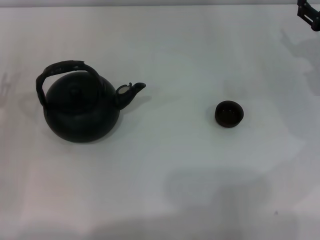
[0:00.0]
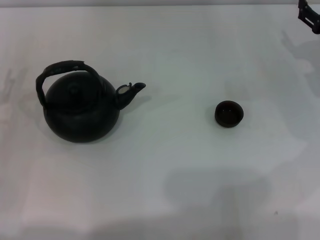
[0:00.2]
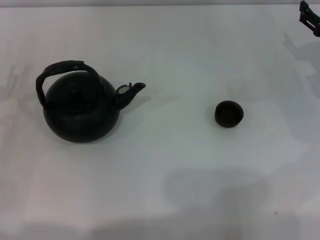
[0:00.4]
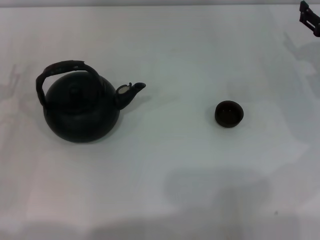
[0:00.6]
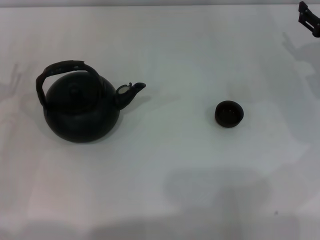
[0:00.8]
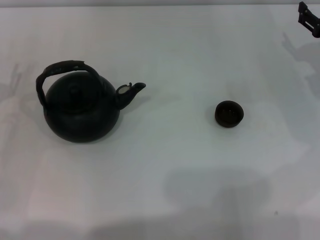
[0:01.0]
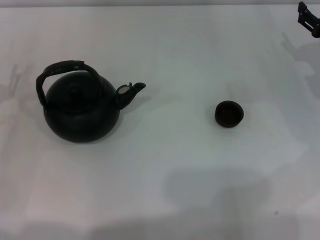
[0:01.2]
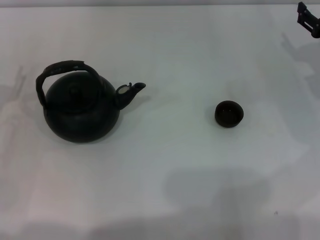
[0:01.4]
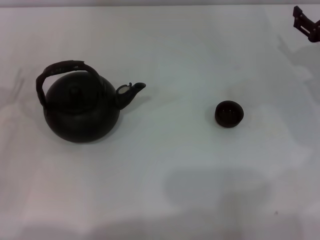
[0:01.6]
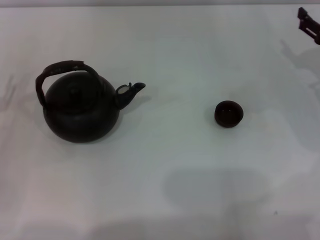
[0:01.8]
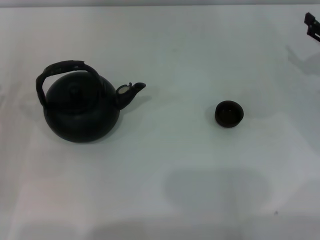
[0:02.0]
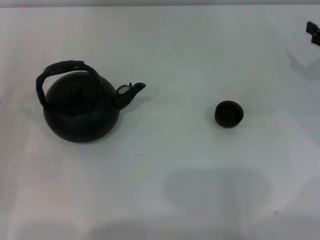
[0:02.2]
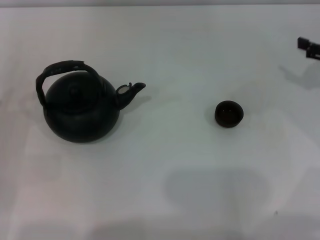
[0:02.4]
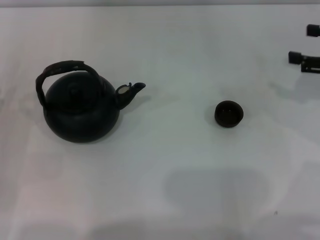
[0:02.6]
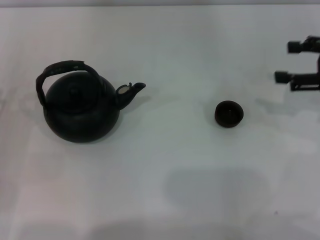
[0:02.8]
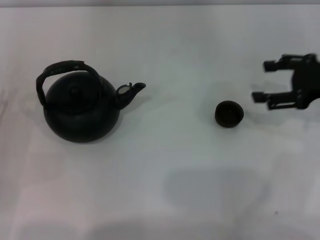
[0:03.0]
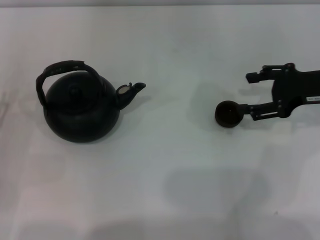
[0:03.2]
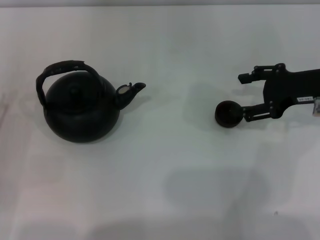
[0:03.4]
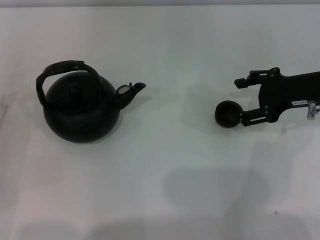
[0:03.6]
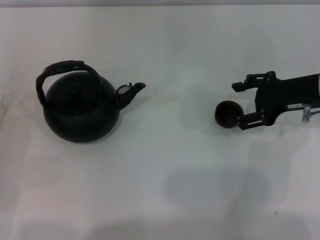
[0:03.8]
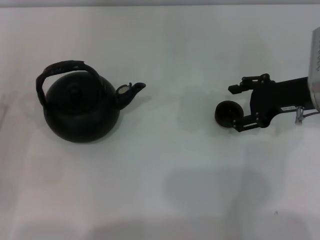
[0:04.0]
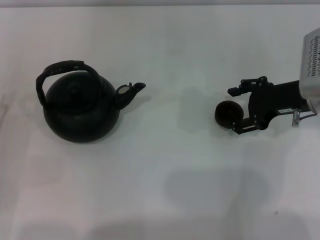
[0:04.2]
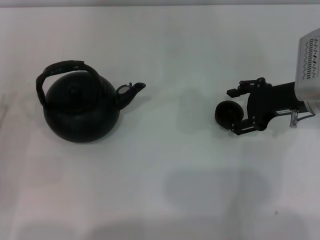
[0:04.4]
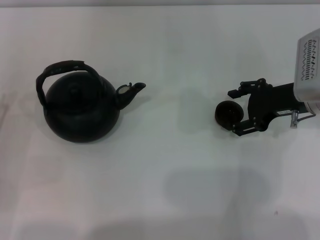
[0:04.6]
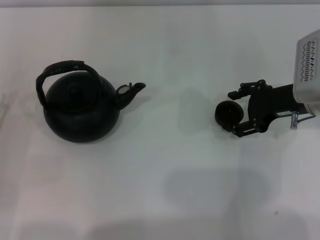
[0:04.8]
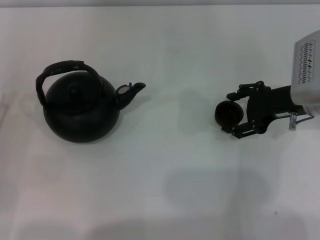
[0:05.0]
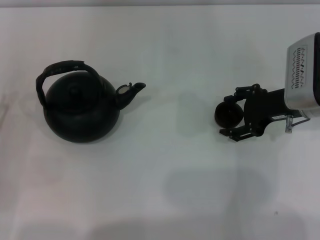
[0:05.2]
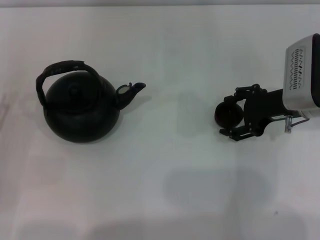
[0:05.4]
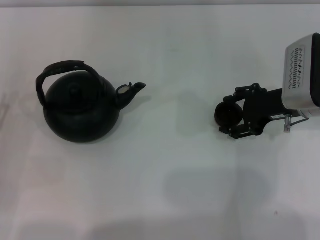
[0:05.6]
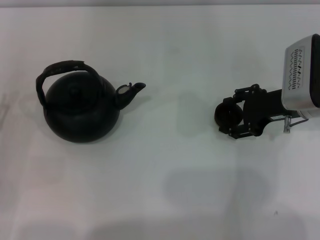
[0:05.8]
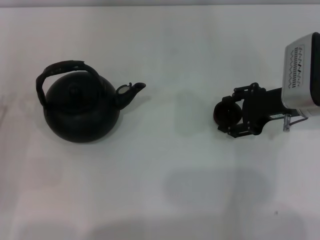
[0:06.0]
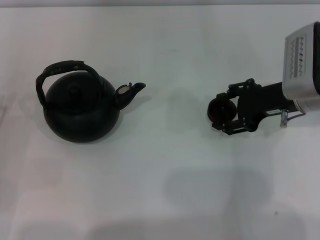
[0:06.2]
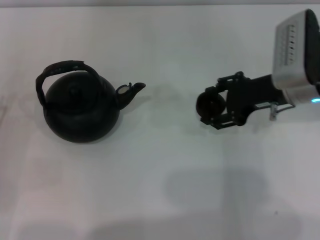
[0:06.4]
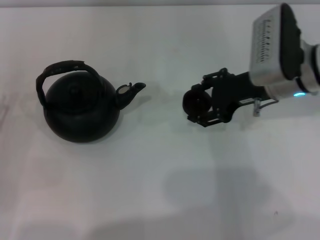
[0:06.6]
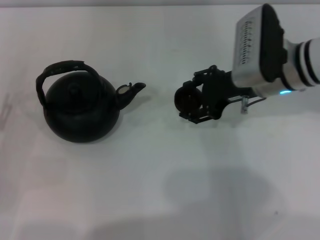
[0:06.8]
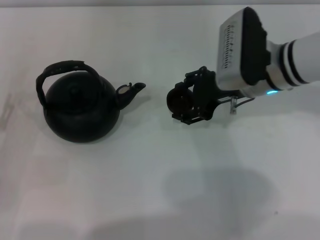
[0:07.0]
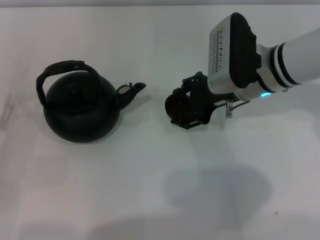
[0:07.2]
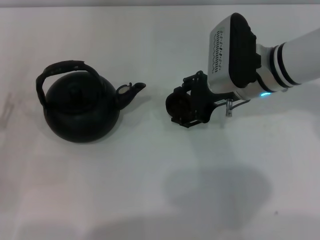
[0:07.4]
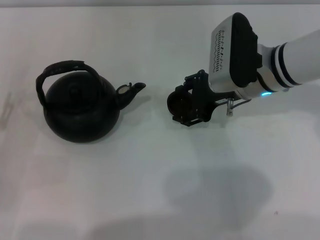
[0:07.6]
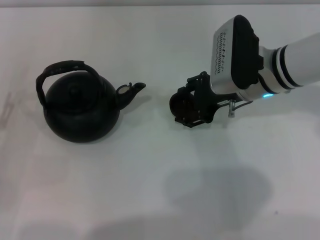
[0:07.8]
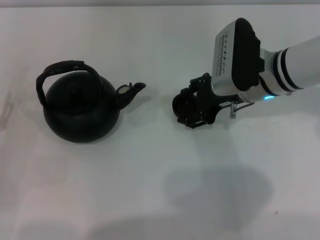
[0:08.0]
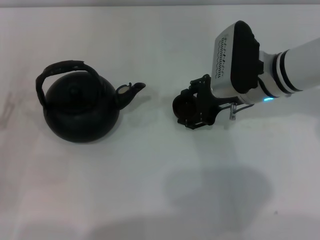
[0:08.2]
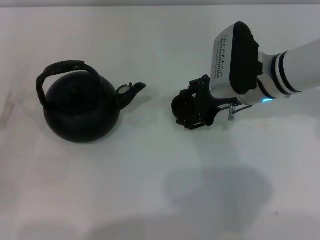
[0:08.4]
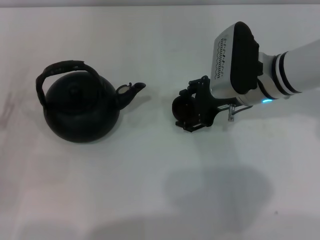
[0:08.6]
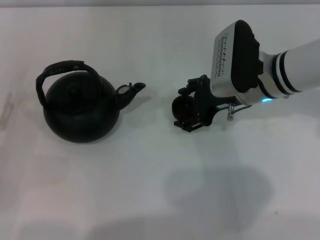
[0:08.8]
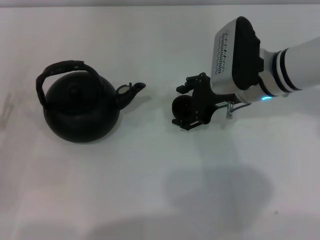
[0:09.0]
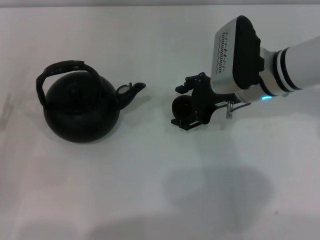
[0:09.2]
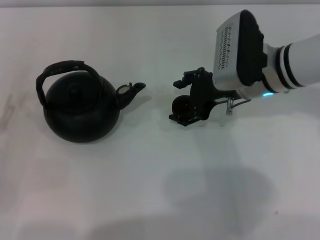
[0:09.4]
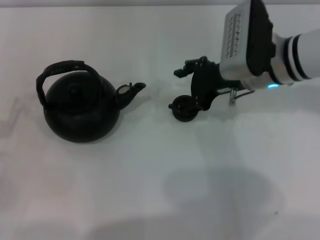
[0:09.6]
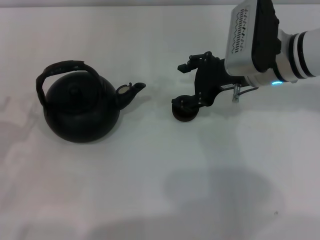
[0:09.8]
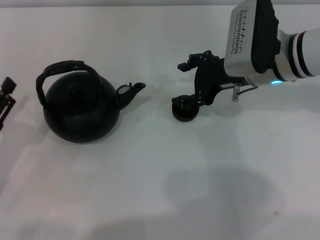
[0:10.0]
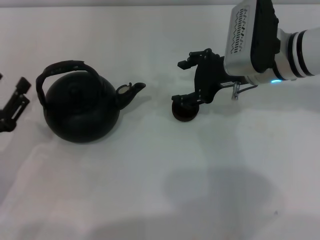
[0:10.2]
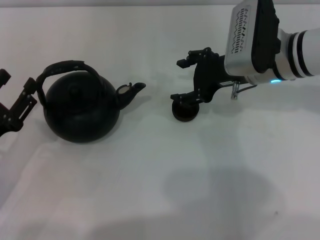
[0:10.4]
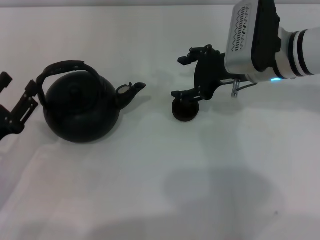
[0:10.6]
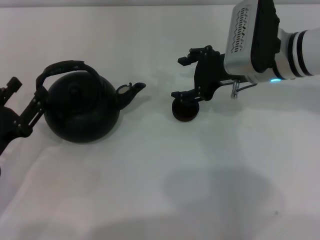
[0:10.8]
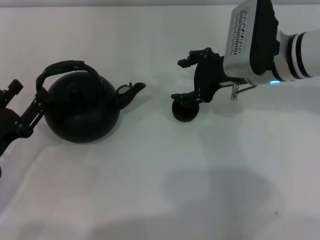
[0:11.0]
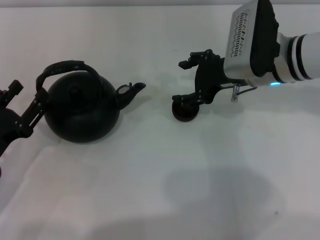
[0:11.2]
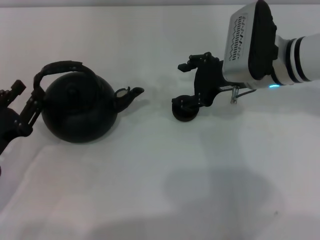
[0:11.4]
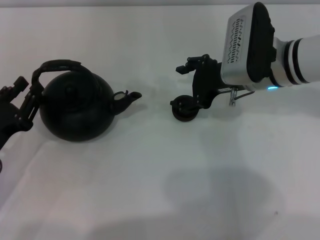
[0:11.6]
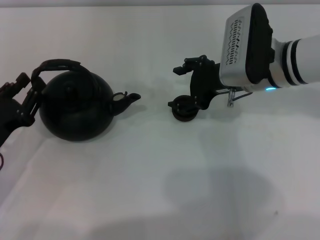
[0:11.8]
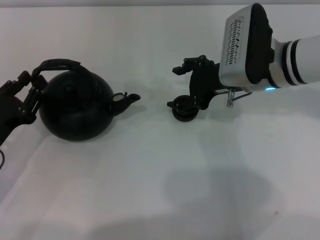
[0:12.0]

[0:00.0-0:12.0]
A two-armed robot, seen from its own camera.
Task of the whole recording: Grasp the handle of the teapot with one hand and pour tea into the teacup.
Step, 0:00.0 to 0:06.2: Pick up the teacup with the right gripper.
Step, 0:06.4 to 0:09.6: Place the teacup in the center of view with the right gripper.
0:00.0 to 0:01.6: There are only small adjustments of the grippers.
0:01.6 to 0:03.0: The right gripper travels upward by roughly 5 cm.
0:03.0 to 0:04.4: The right gripper travels to the left by roughly 5 cm.
0:04.4 to 0:06.0: The right gripper closes up.
0:06.0 to 0:07.6: The right gripper heads to the left, covering approximately 10 cm.
0:07.6 to 0:09.0: The right gripper opens up.
0:09.0 to 0:10.4: The left gripper shifts approximately 5 cm to the right.
0:10.4 to 0:12.0: The left gripper closes its fingers.

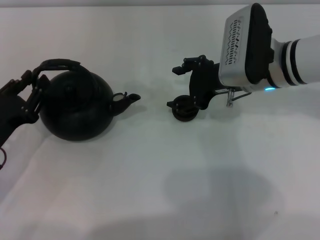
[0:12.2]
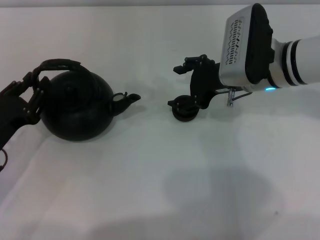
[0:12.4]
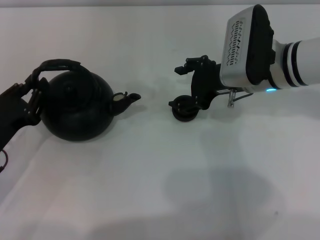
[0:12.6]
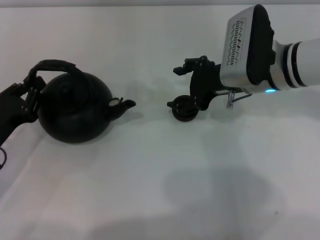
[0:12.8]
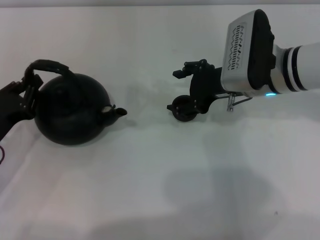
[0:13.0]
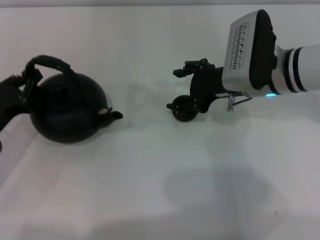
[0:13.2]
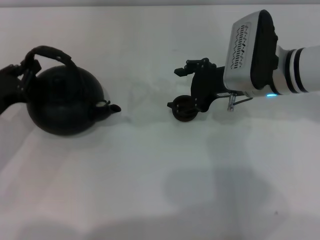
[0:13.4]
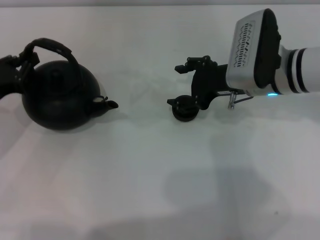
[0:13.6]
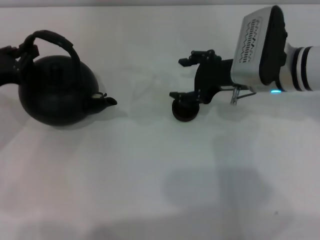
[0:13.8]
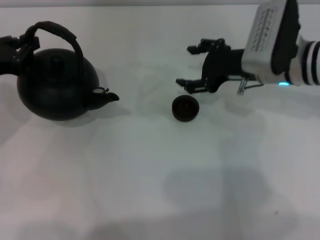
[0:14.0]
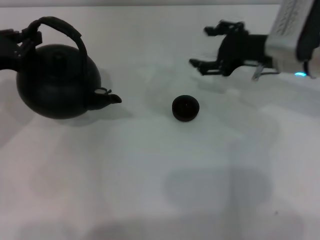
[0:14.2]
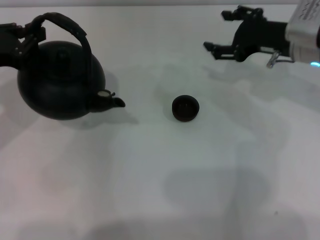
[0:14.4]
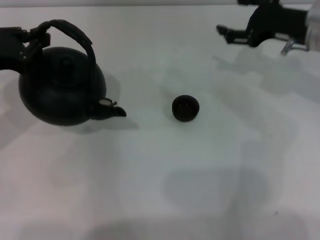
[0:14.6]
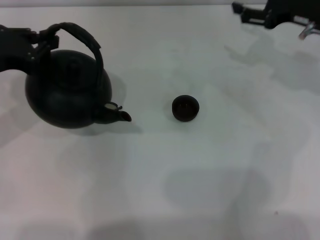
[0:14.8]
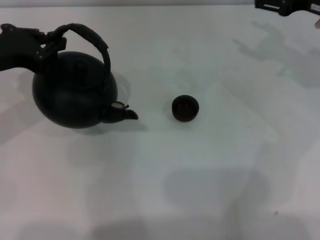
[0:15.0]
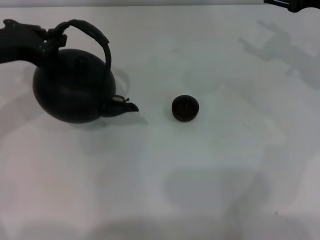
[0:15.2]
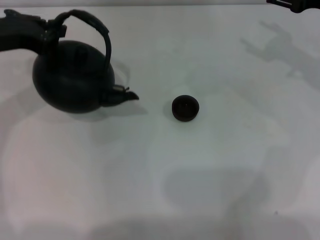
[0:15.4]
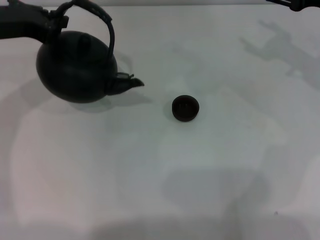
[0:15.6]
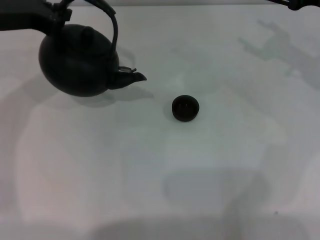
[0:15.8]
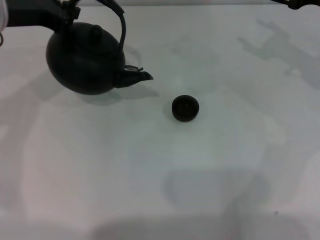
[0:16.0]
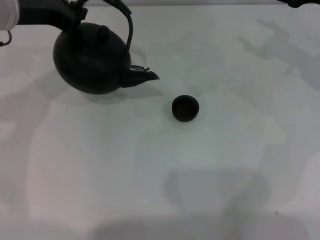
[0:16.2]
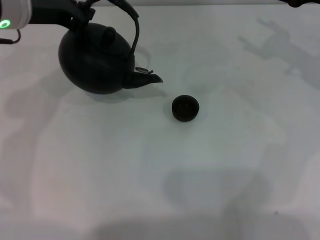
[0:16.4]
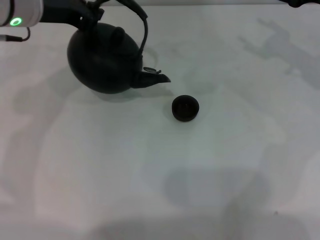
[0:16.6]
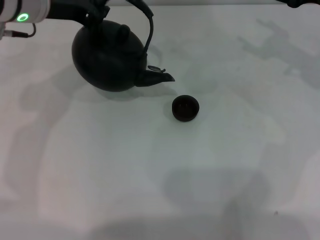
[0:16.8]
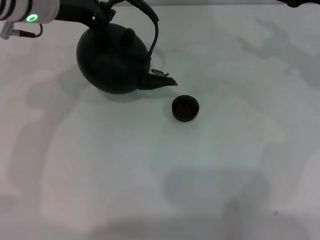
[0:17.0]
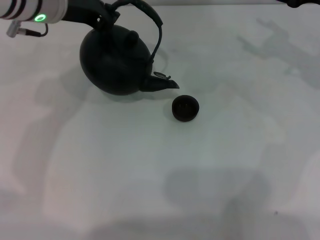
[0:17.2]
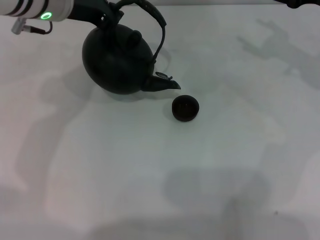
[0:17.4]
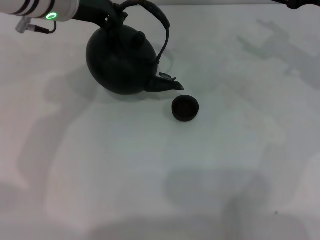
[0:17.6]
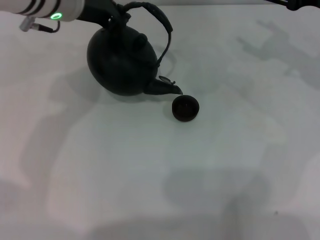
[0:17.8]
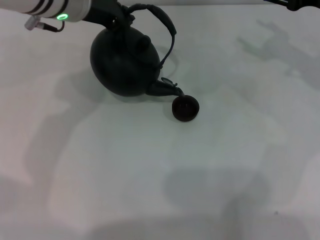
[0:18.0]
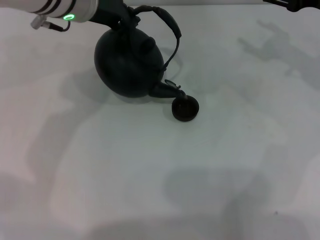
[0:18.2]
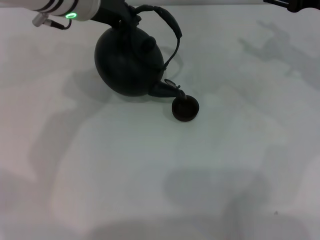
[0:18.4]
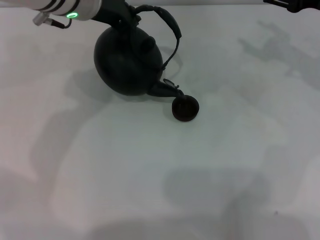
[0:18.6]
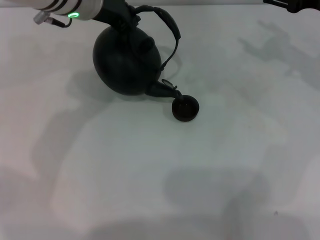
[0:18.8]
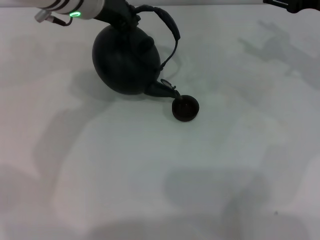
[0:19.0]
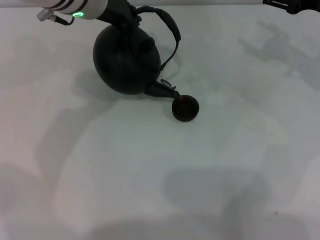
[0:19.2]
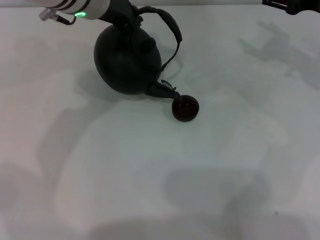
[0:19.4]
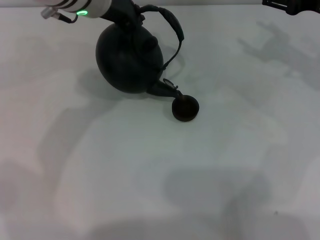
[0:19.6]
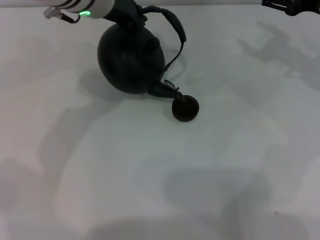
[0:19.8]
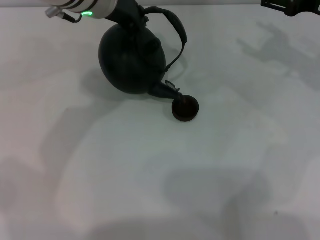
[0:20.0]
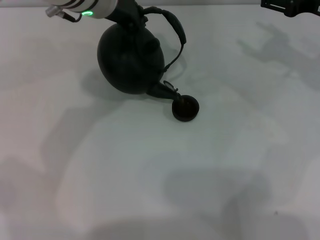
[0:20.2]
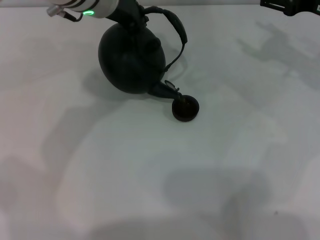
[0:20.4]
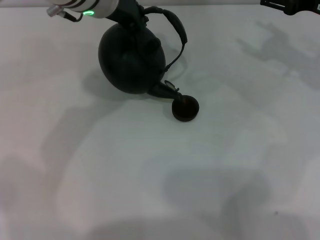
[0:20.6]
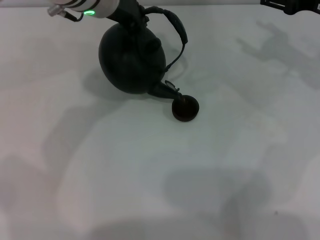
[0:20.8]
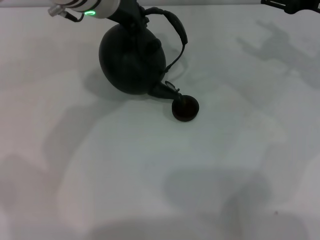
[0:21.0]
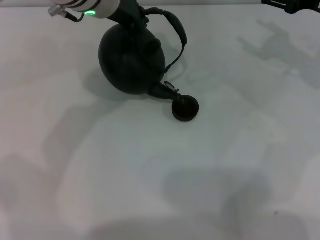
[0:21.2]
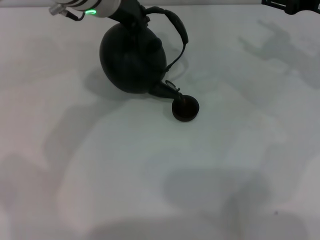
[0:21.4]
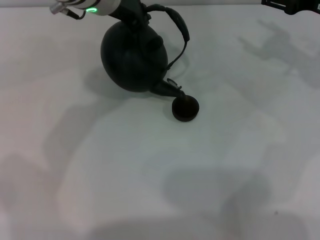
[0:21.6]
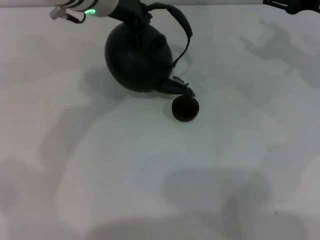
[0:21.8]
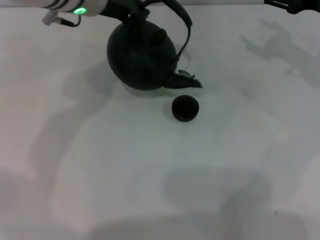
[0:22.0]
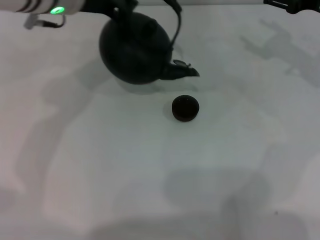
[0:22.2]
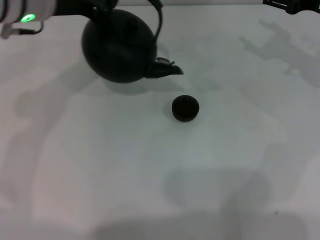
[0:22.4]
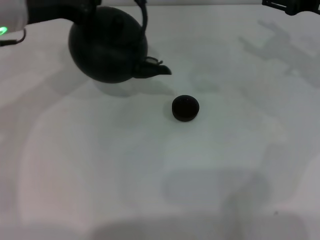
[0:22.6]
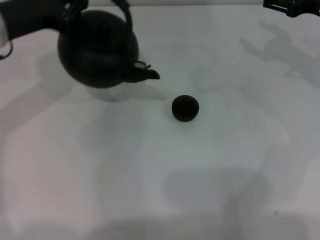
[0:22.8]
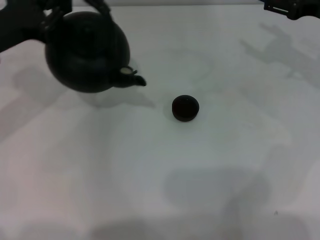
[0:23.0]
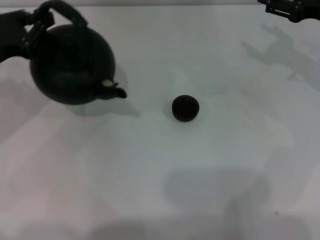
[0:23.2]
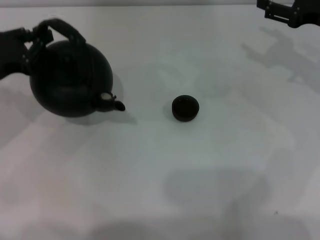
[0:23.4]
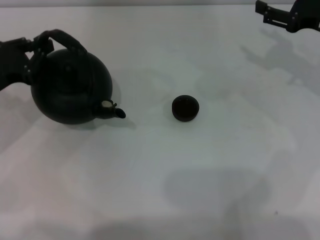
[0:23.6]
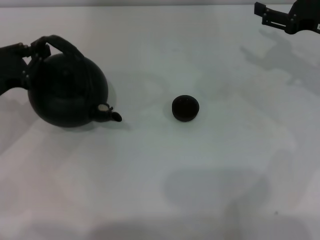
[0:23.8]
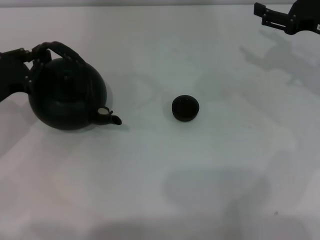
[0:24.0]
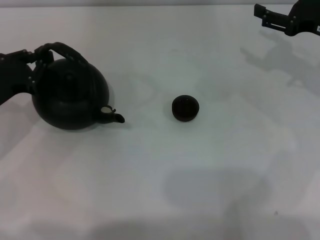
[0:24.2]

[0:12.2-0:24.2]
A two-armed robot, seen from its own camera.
Task of the whole recording: Grasp the handle of the teapot with one hand and pour tea into the teacup.
Step, 0:12.2 to 0:15.0: Pick up the teapot with the left gripper.
Step, 0:15.4 to 0:22.0: Pour tea into the teacup with the left gripper.
0:12.2 to 0:13.8: The left gripper is displaced upward and forward by about 10 cm, and closes its fingers.
0:13.8 to 0:15.2: The right gripper is displaced to the right and upward by roughly 15 cm. The left gripper travels upward by some 10 cm.
0:15.2 to 0:16.6: The left gripper travels to the right and forward by some 10 cm.
0:16.6 to 0:18.2: The left gripper shifts roughly 5 cm to the right.
0:18.2 to 0:19.8: The grippers make only small movements.
0:19.8 to 0:21.2: Both grippers stay about where they are.
0:21.2 to 0:22.6: The left gripper heads to the left, covering roughly 15 cm.
0:22.6 to 0:24.2: The left gripper travels downward, to the left and backward by some 15 cm.
